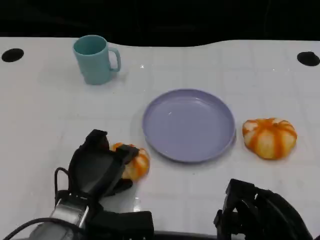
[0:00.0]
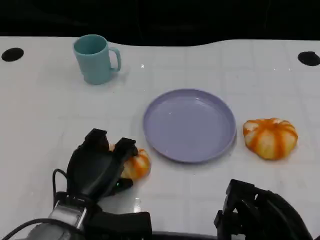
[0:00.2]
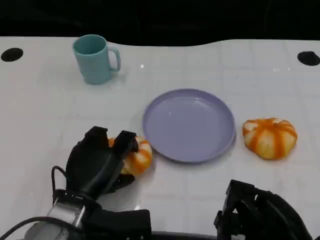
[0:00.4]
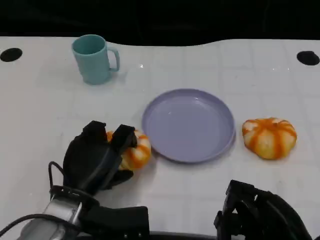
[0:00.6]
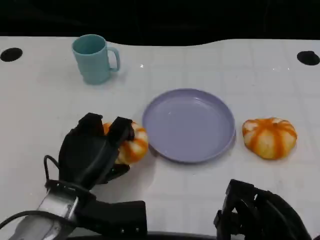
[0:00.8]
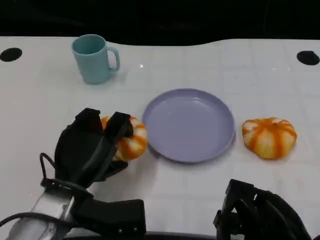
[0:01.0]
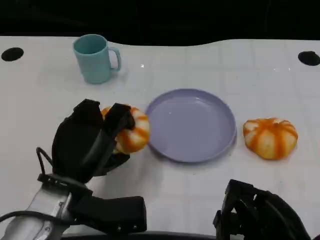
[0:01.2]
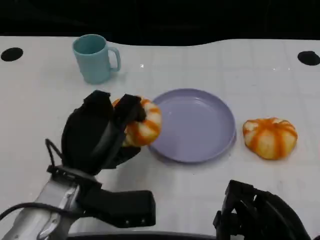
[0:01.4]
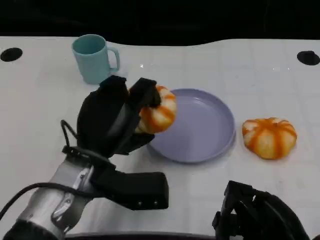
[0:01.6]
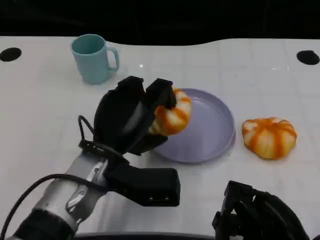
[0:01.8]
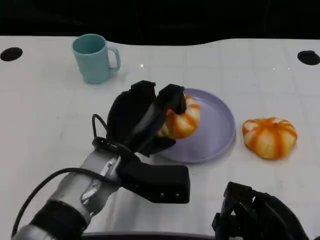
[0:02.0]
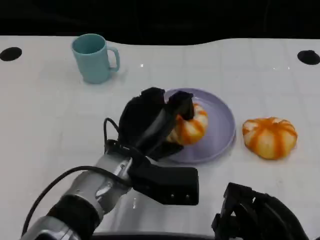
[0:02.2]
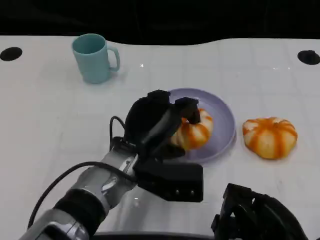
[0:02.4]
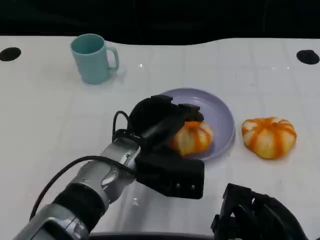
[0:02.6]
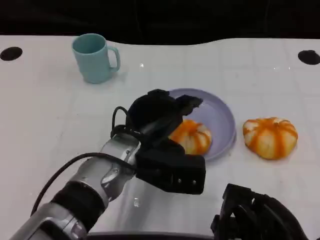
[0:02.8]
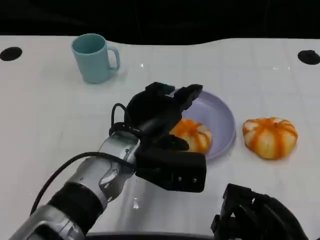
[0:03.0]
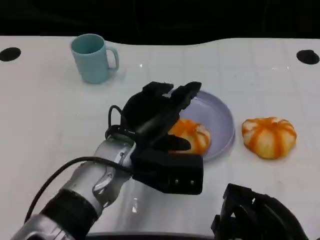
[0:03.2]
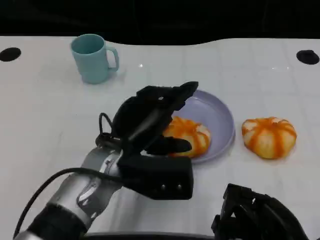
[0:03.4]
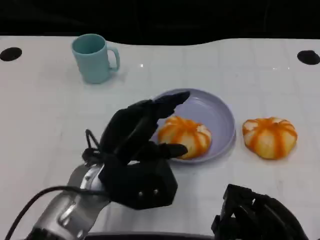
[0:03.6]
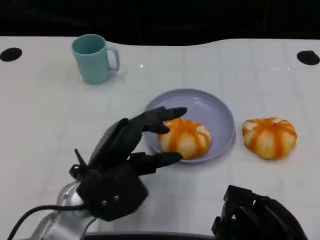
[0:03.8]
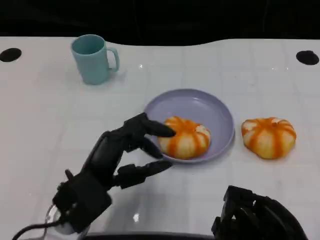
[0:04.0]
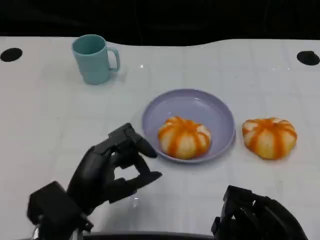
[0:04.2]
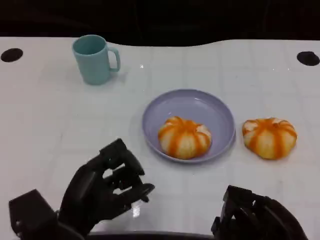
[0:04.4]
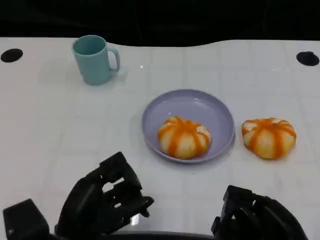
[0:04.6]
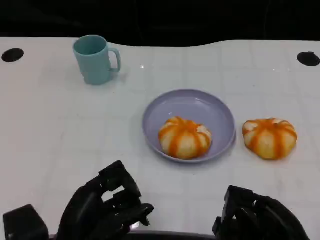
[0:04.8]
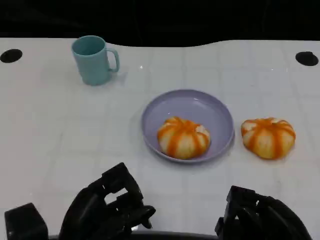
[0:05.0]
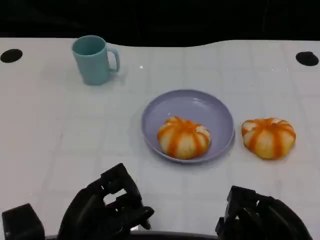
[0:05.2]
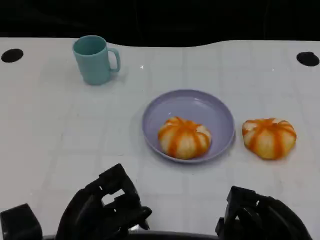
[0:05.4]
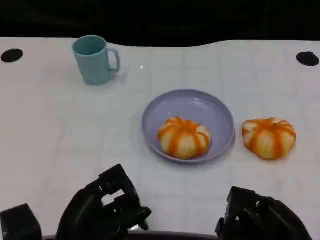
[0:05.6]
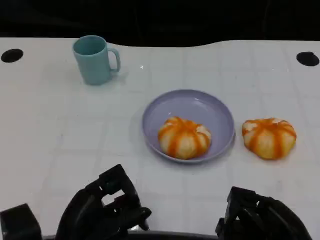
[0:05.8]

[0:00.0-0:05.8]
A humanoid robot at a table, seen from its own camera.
Task of the whole recording: Grasp the bread from the table and place it into the plate.
0:00.0 to 0:01.4: The left hand goes roughly 5 cm upward.
0:01.4 to 0:02.8: The left hand heads to the right, covering some 5 cm.
0:02.8 to 0:04.4: The left hand heads backward and to the left, covering approximately 15 cm.
0:04.4 to 0:05.8: There are only small adjustments of the hands.
